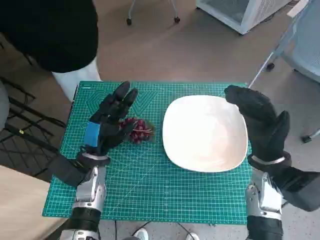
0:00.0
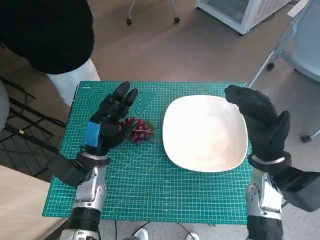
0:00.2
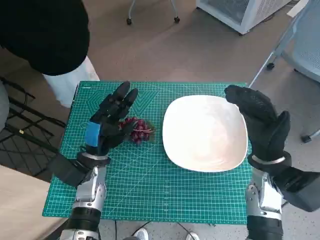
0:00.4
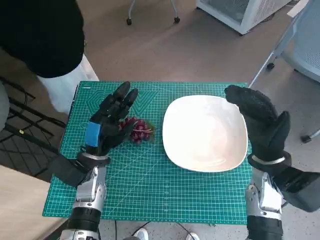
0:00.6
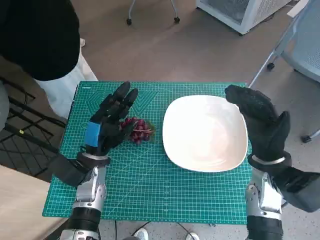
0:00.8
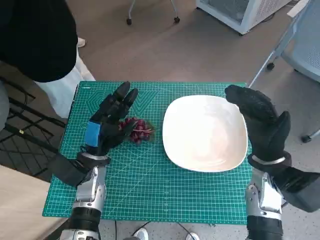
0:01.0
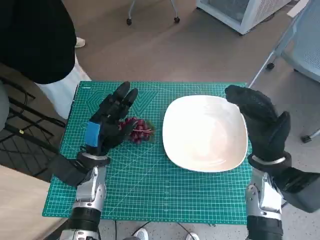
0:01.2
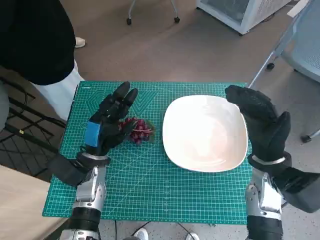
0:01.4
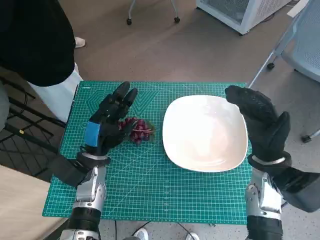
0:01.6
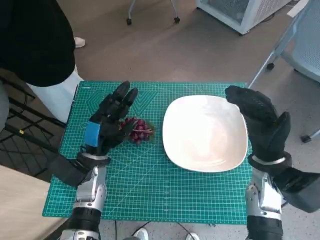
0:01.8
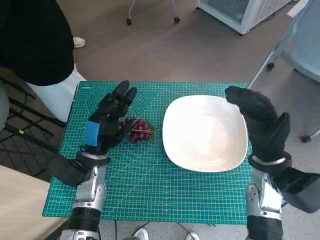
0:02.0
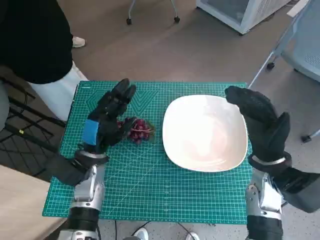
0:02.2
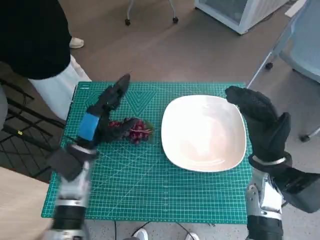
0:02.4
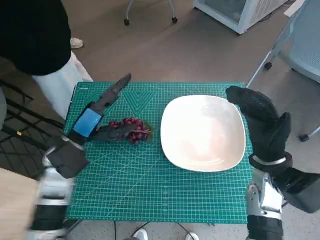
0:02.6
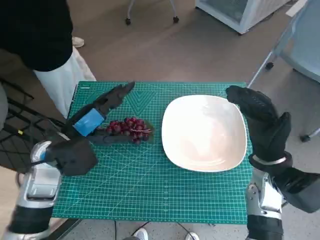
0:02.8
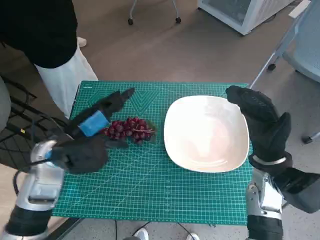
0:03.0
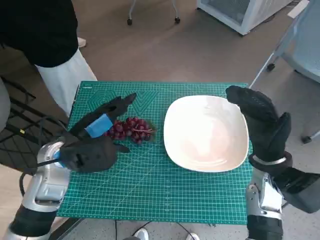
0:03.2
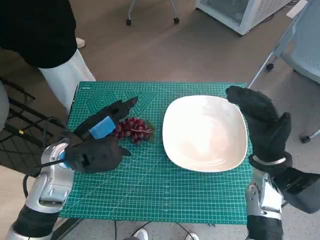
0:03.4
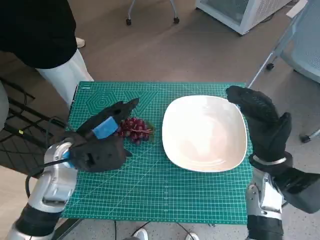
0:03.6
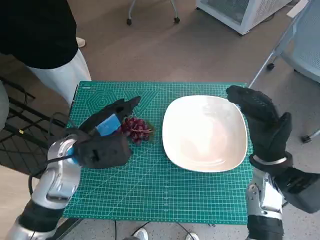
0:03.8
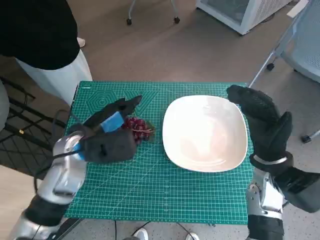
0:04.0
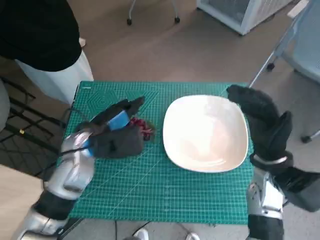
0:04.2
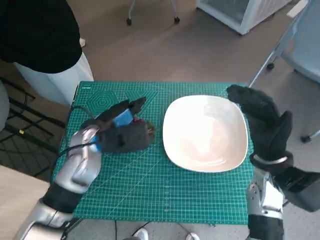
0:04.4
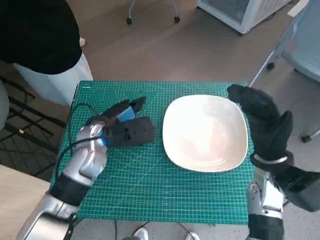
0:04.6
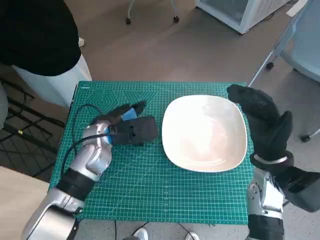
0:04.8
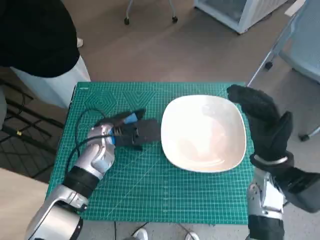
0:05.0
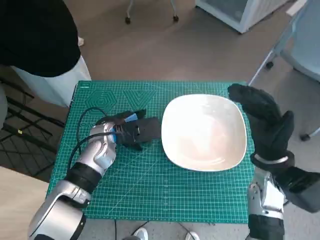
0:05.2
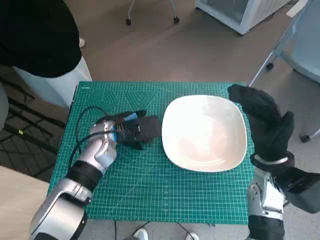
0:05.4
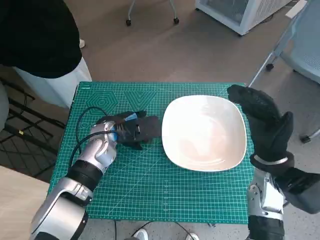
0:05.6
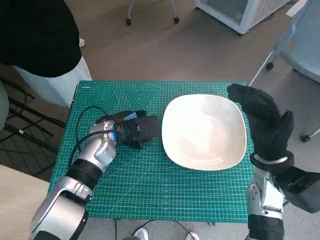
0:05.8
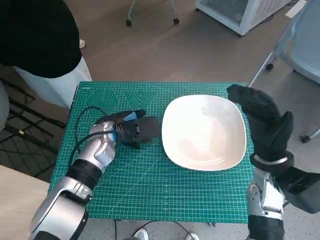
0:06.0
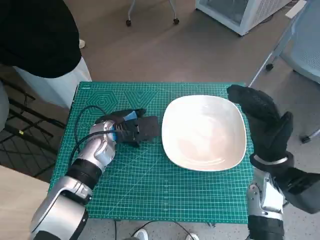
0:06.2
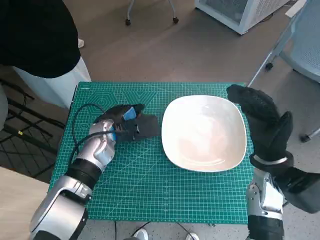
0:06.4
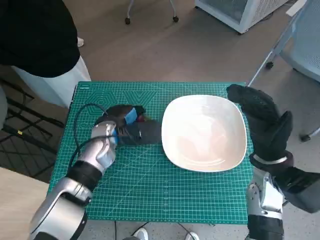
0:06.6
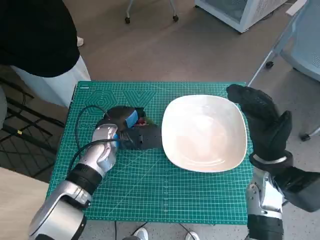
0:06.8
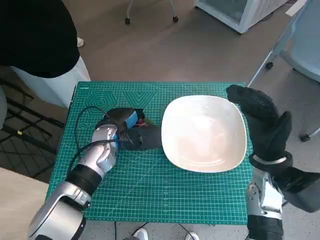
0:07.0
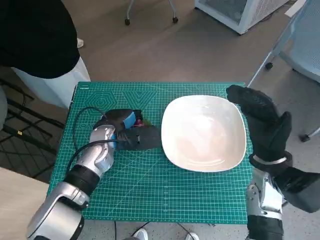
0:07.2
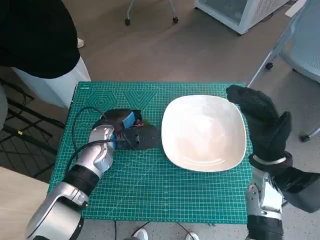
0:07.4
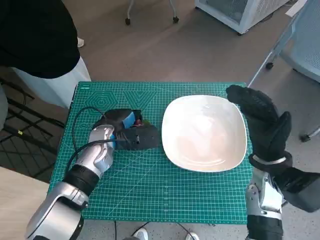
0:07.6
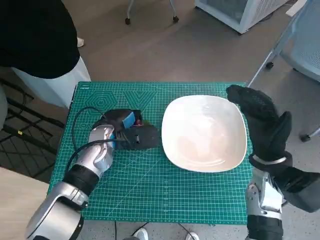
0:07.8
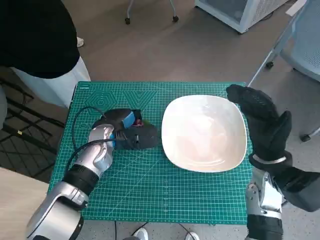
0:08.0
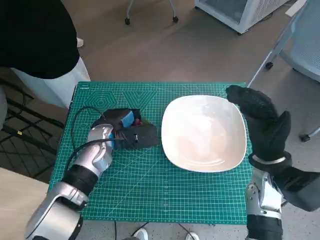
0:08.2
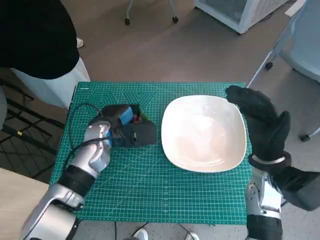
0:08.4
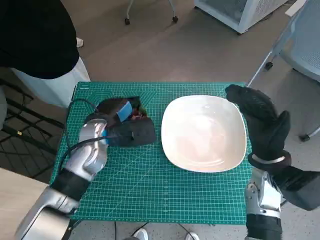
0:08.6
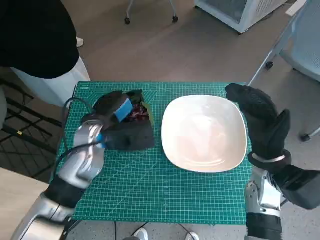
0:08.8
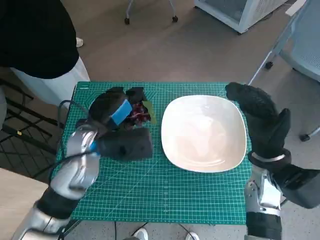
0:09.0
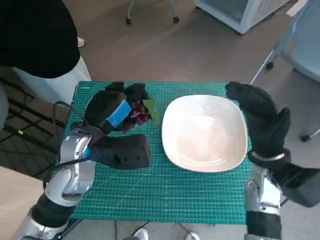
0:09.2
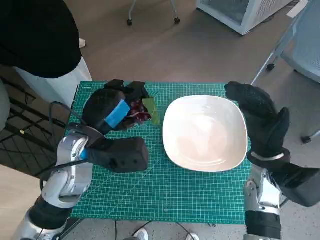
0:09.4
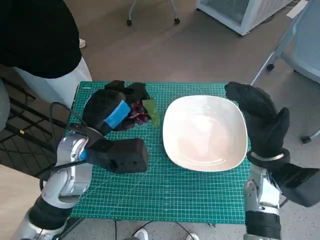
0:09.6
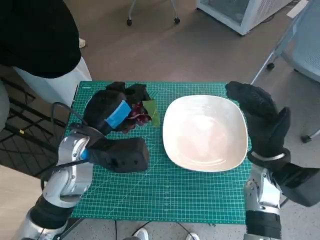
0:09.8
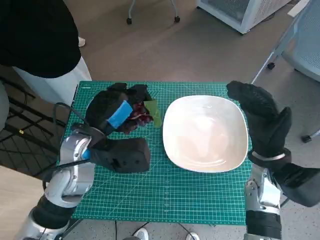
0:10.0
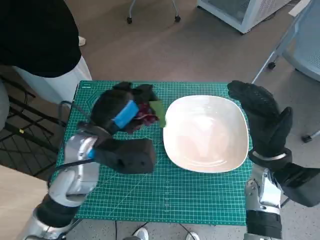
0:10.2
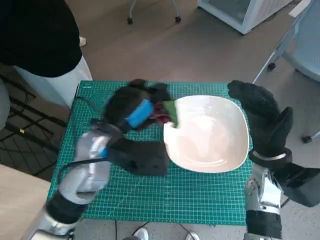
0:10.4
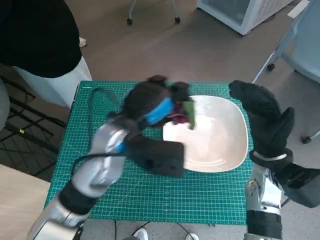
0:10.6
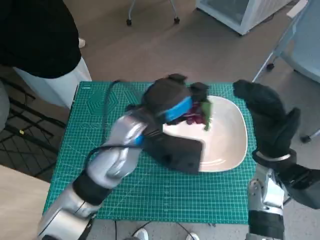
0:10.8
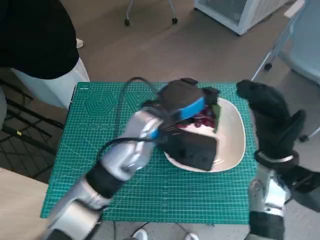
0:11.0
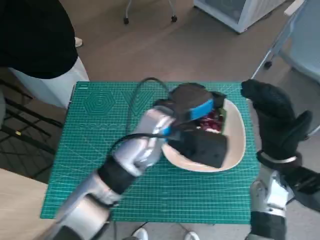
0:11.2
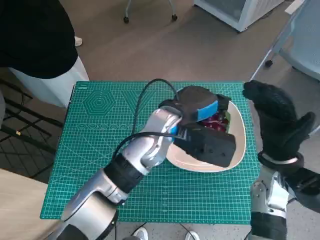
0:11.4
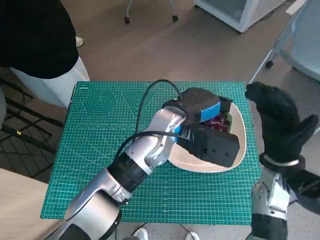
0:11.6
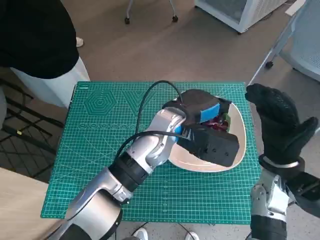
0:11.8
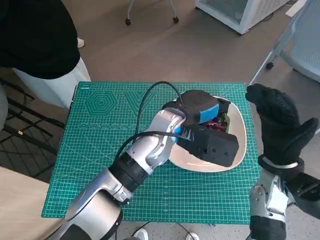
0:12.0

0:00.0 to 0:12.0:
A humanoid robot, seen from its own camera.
Task of the whole recording: Pick up the grapes and put them on the plate.
Step, 0:00.0 to 0:07.8: Grasp the grapes with left hand.
0:01.6 to 0:03.0: The left hand is displaced upward by about 10 cm.
0:03.0 to 0:04.4: The left hand changes place by roughly 5 cm.
0:04.4 to 0:06.0: The left hand ends up roughly 5 cm from where it was.
0:06.0 to 0:07.6: The hands move only a little.
0:07.6 to 0:09.0: The left hand goes about 5 cm upward.
0:09.0 to 0:10.4: The hands stay close to where they were, moving slightly.
0:10.4 to 0:12.0: The left hand moves to the right and forward, roughly 15 cm.

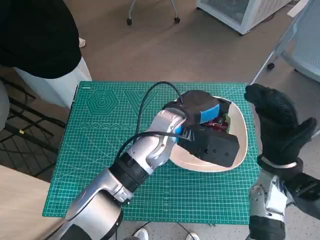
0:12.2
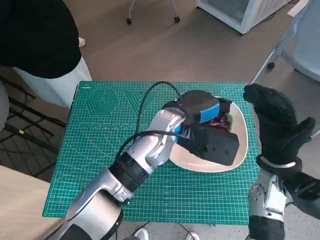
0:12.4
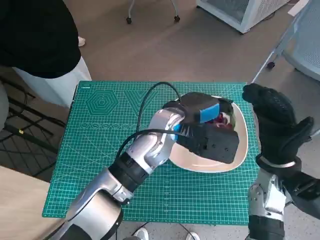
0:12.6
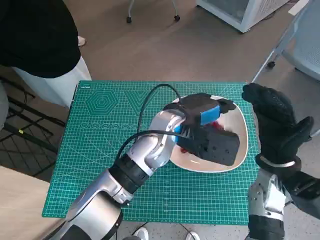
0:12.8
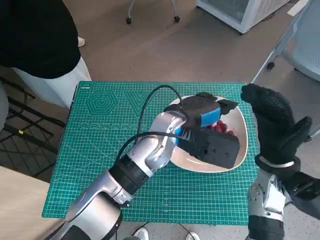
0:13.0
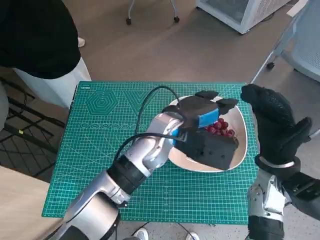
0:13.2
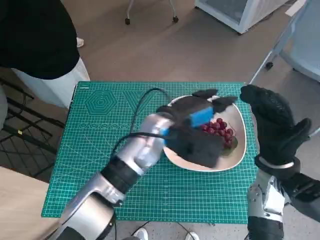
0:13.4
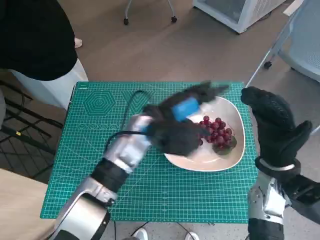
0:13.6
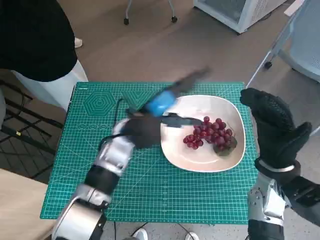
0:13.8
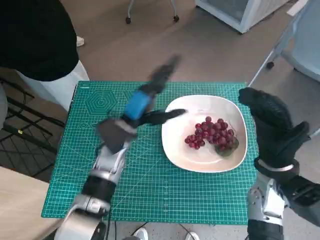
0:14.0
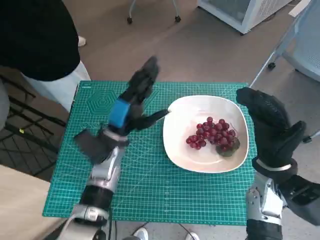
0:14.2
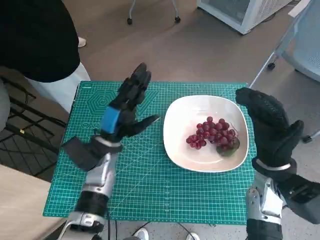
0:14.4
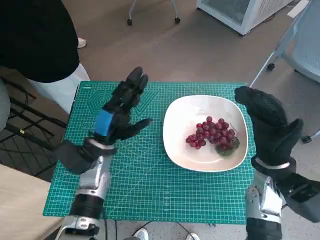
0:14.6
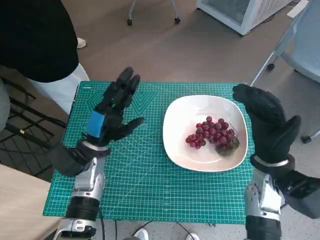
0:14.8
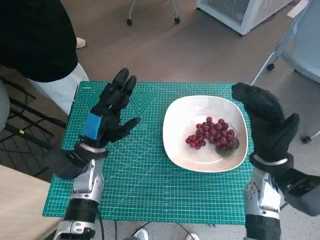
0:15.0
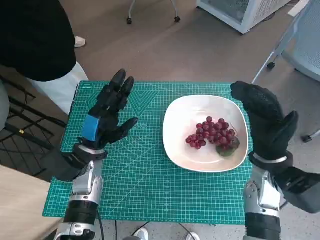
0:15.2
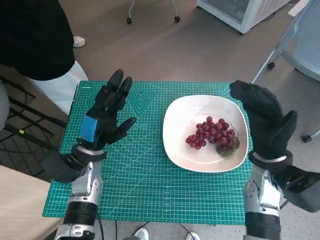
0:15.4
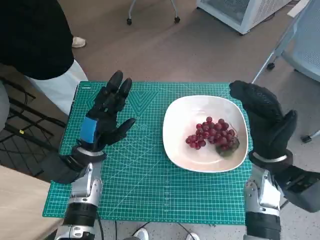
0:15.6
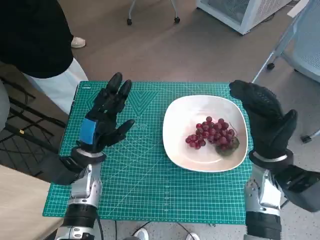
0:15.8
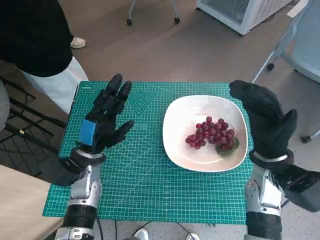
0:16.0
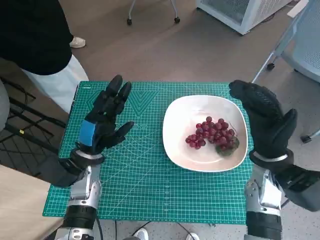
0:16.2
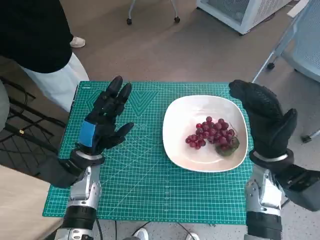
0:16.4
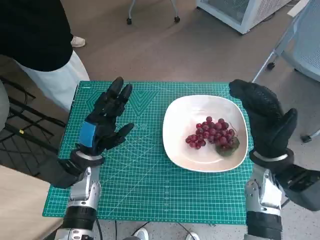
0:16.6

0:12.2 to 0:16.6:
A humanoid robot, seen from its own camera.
Task of the whole recording: Pick up the grapes and put them on the plate.
0:13.6 to 0:15.2: The left hand shifts approximately 15 cm to the left and downward.
0:15.2 to 0:16.6: The hands stay close to where they were, moving slightly.

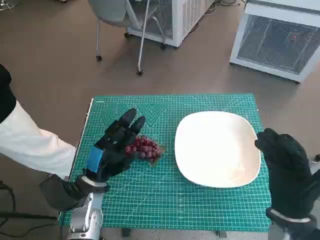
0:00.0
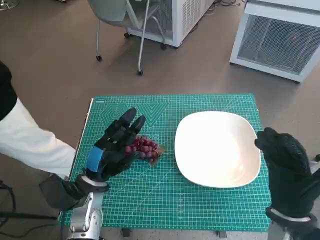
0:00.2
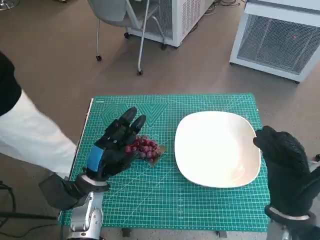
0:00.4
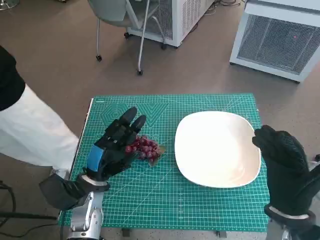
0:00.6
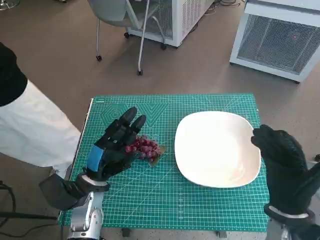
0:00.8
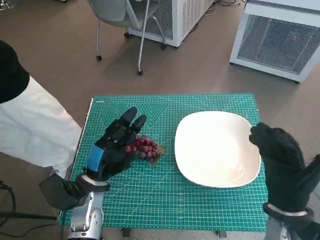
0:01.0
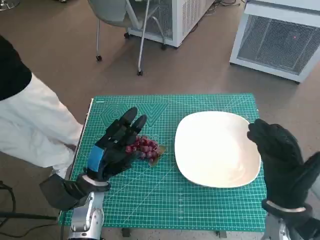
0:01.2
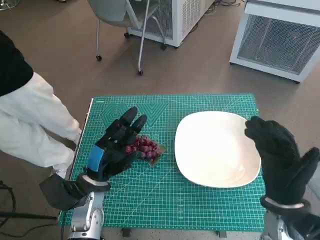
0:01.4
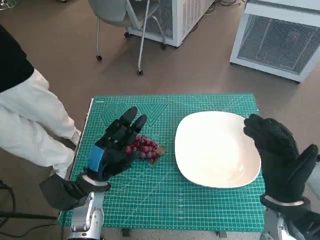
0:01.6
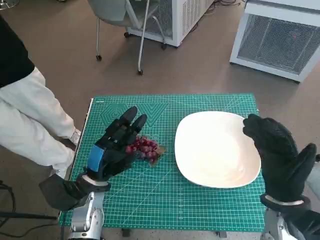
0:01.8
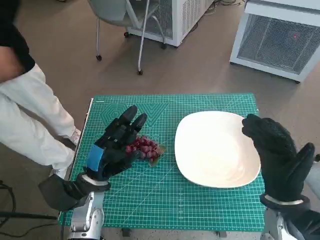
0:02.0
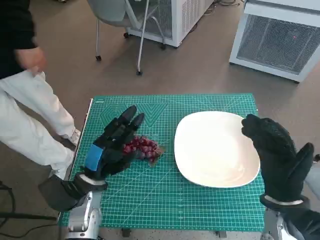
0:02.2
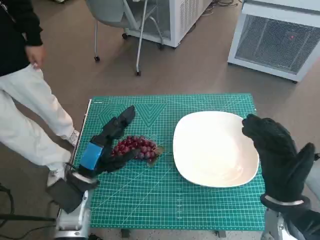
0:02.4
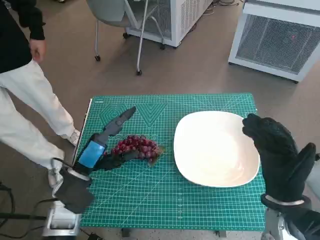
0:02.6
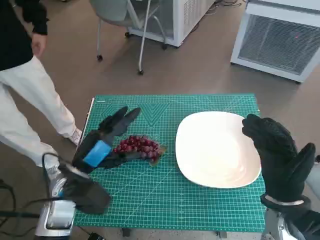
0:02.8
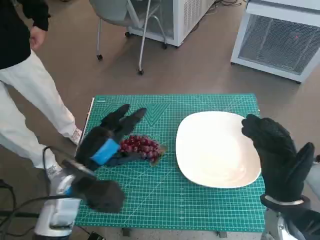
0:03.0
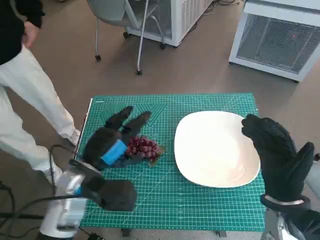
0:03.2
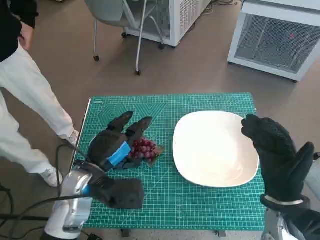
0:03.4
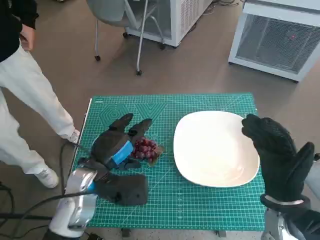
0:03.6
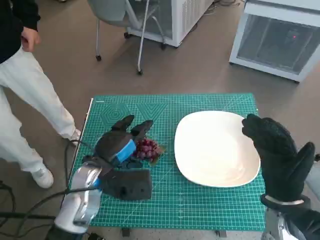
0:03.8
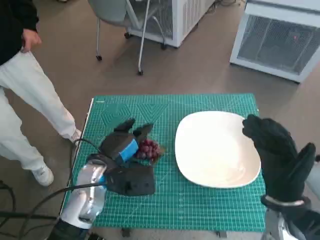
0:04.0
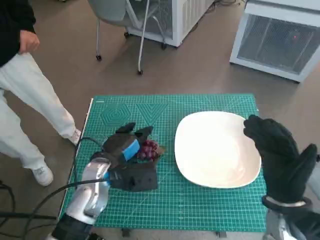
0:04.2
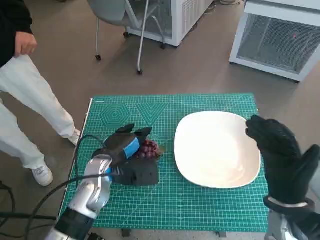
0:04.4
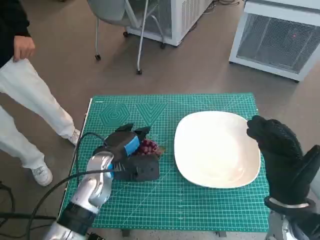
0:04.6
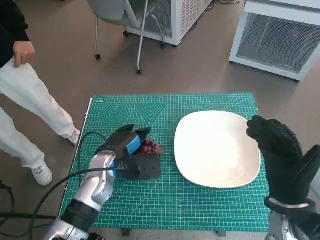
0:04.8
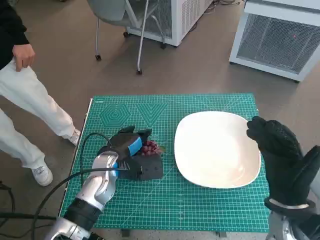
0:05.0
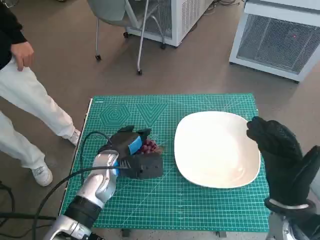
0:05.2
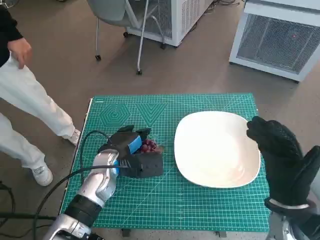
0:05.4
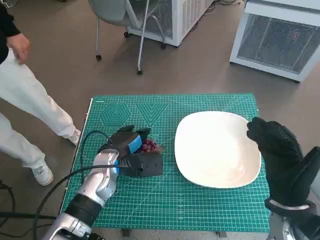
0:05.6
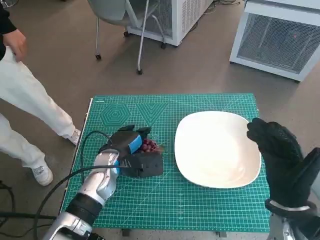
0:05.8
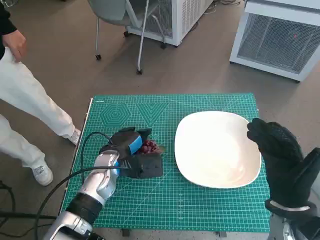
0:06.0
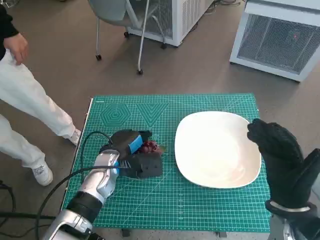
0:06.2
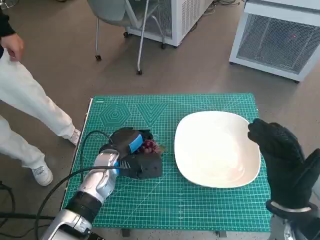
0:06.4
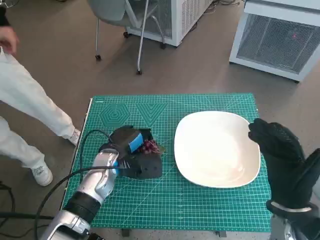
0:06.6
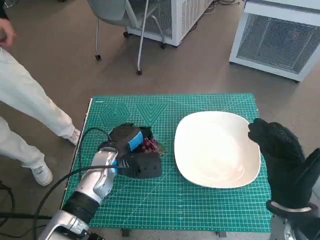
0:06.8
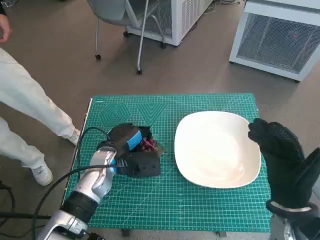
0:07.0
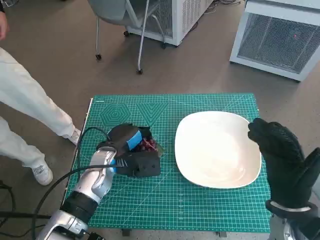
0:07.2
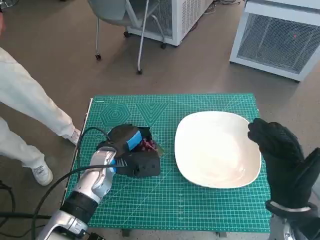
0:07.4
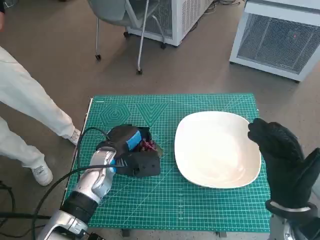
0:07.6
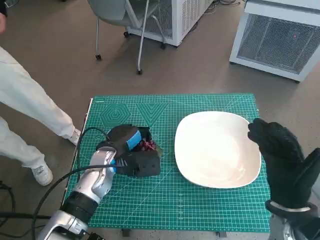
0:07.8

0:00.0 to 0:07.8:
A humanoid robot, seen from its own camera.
Task of the whole recording: Pick up the grapes and put them on the plate.
Step, 0:00.0 to 0:06.4: Grasp the grapes with left hand.
0:01.6 to 0:03.2: The left hand goes about 5 cm upward.
0:03.2 to 0:04.6: The left hand shifts approximately 5 cm forward.
0:04.6 to 0:07.8: There are only small adjustments of the hands.
